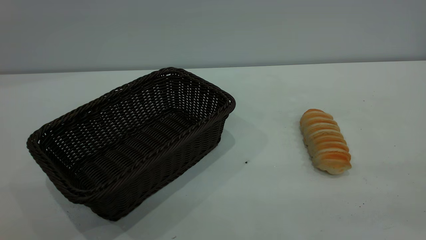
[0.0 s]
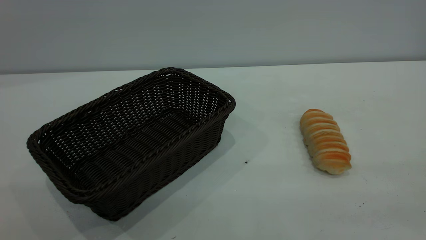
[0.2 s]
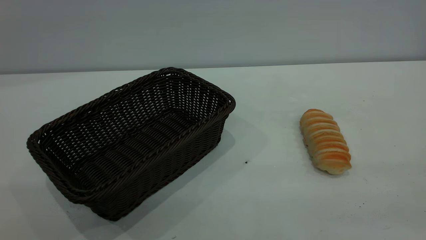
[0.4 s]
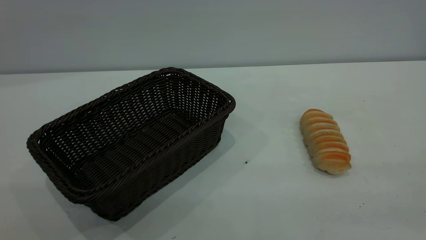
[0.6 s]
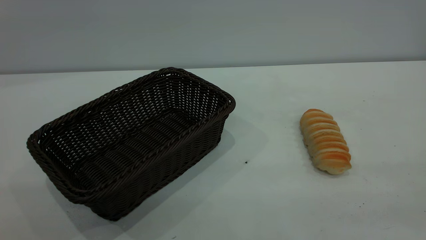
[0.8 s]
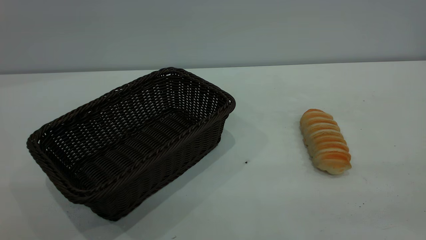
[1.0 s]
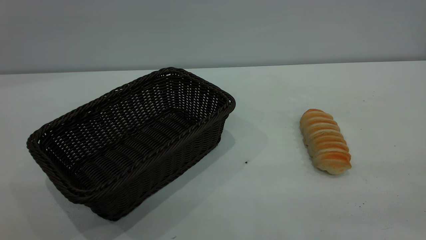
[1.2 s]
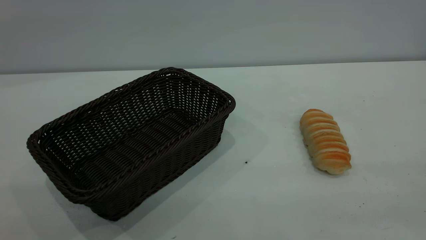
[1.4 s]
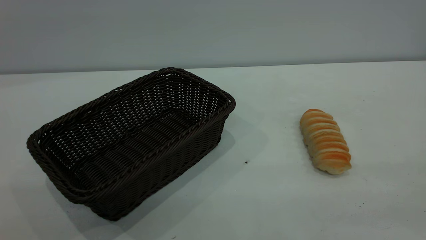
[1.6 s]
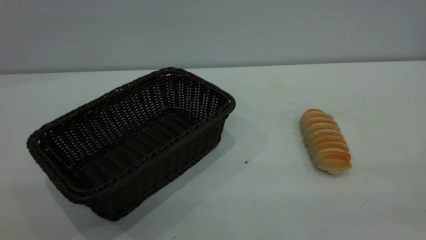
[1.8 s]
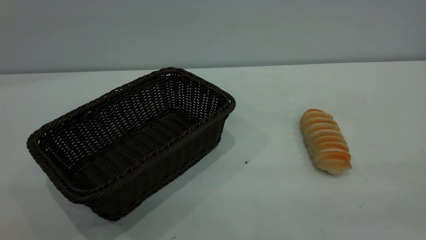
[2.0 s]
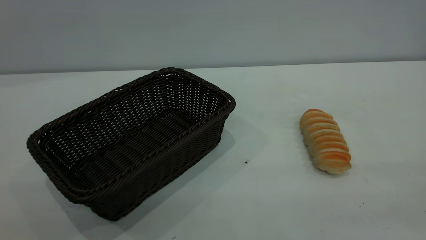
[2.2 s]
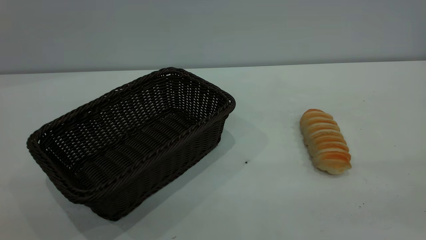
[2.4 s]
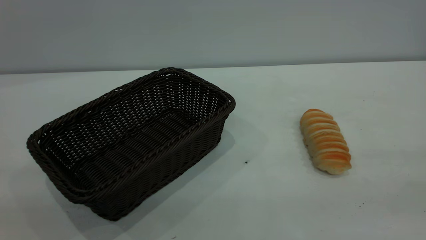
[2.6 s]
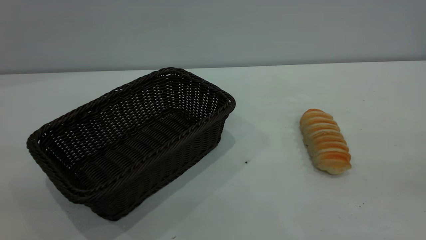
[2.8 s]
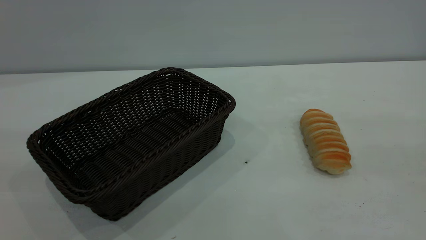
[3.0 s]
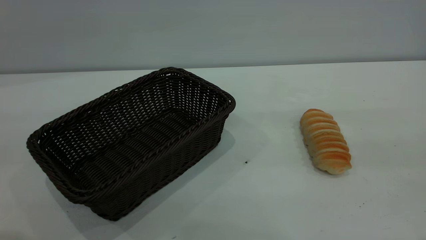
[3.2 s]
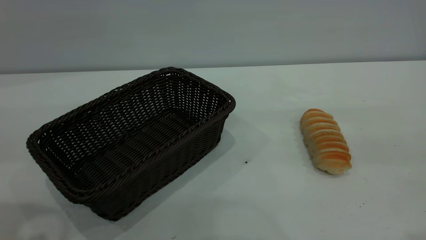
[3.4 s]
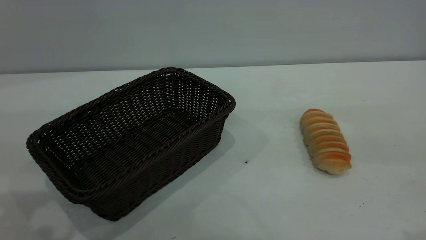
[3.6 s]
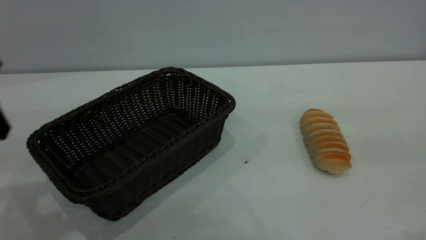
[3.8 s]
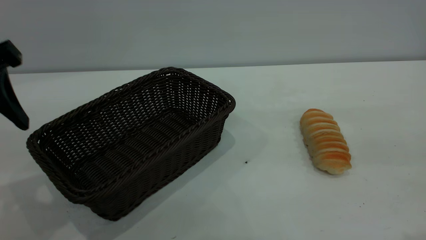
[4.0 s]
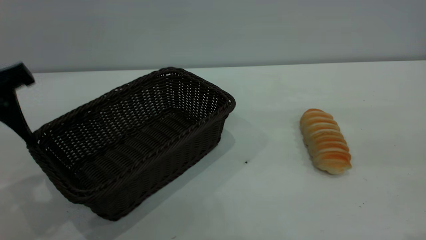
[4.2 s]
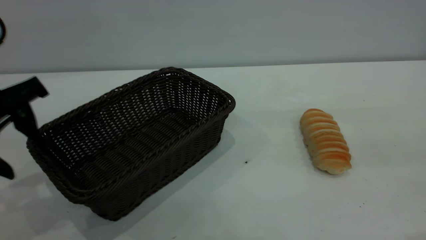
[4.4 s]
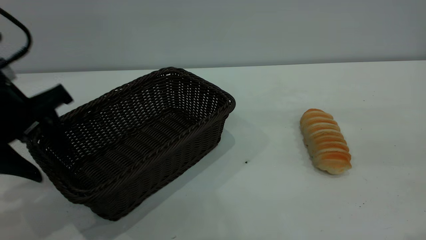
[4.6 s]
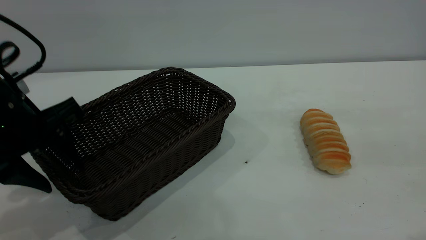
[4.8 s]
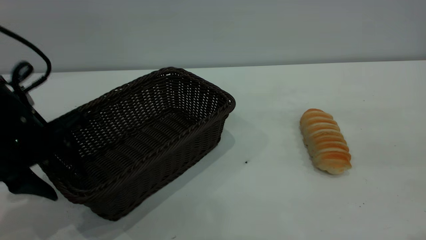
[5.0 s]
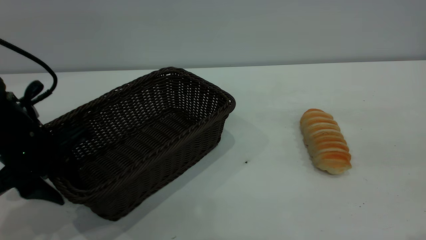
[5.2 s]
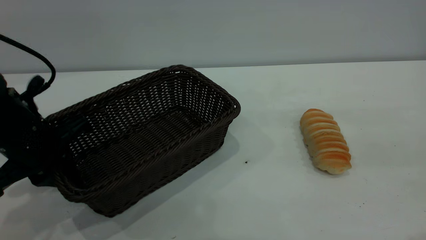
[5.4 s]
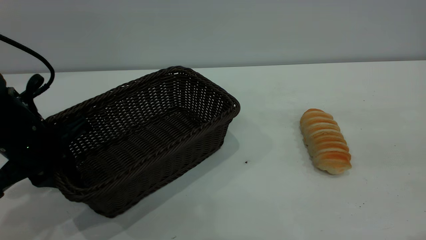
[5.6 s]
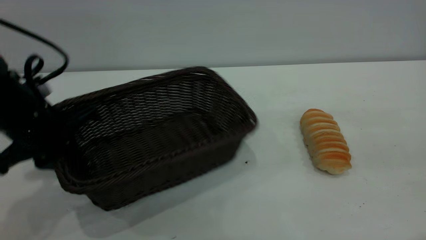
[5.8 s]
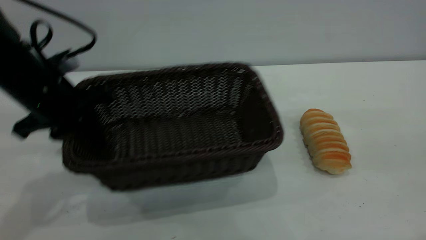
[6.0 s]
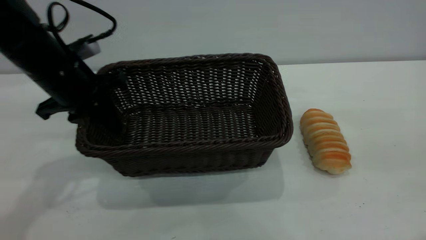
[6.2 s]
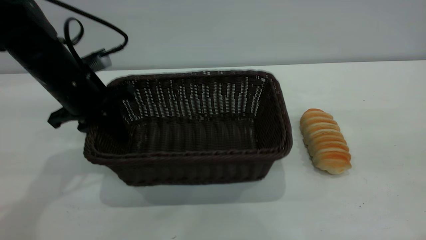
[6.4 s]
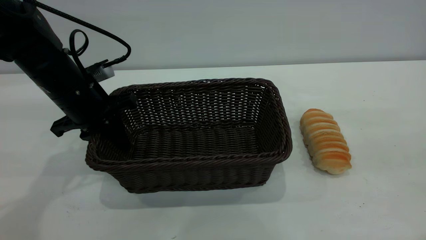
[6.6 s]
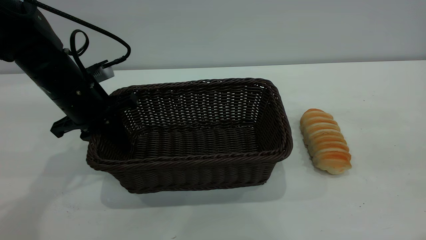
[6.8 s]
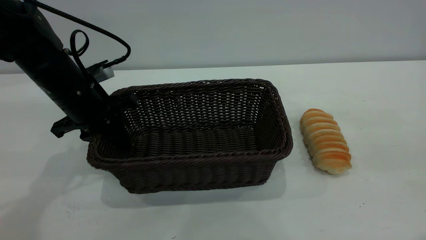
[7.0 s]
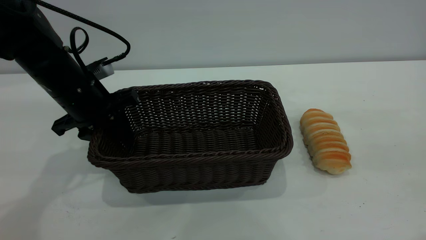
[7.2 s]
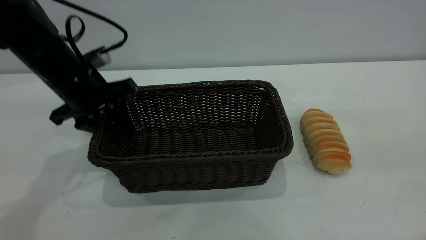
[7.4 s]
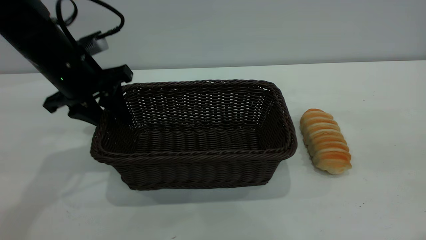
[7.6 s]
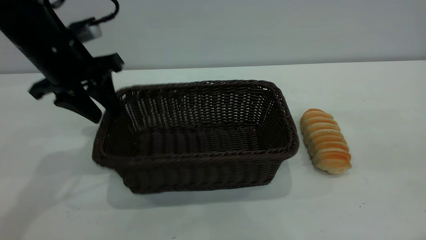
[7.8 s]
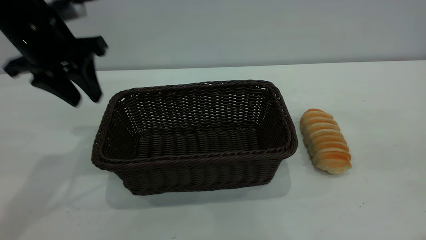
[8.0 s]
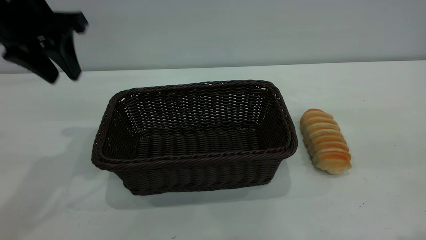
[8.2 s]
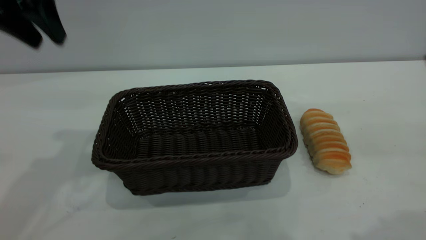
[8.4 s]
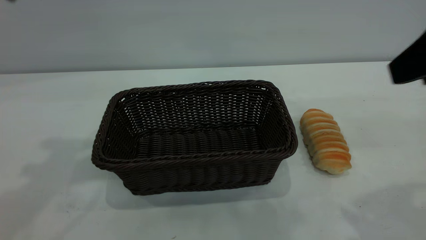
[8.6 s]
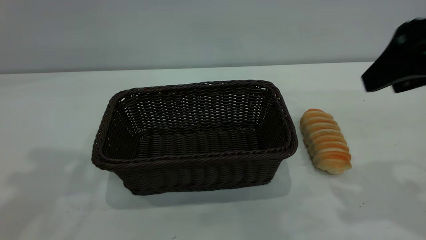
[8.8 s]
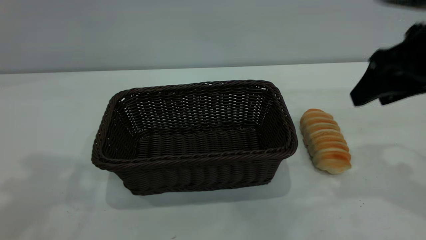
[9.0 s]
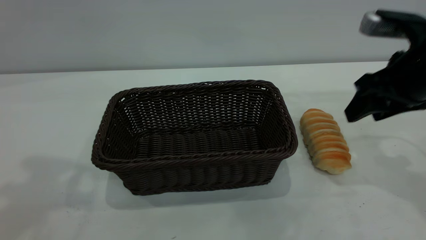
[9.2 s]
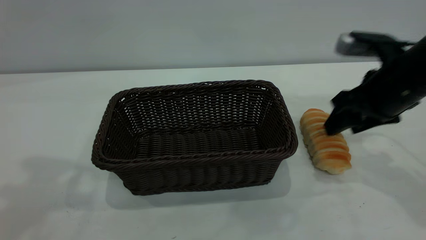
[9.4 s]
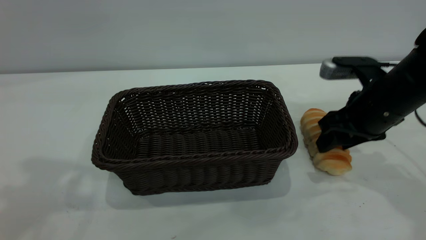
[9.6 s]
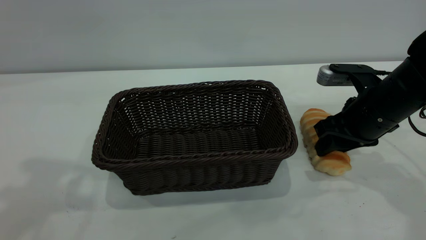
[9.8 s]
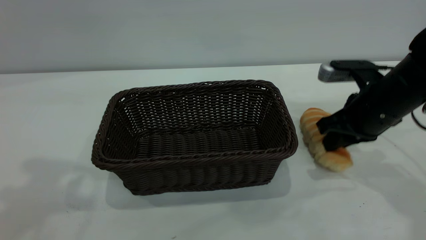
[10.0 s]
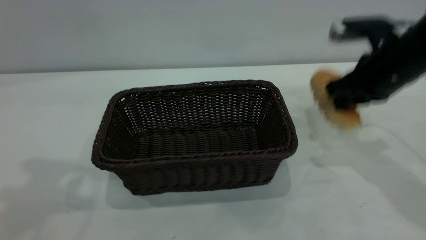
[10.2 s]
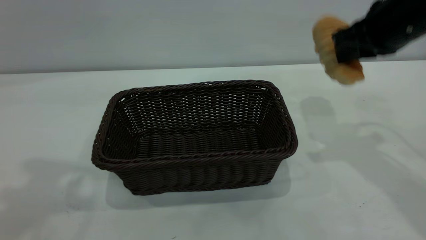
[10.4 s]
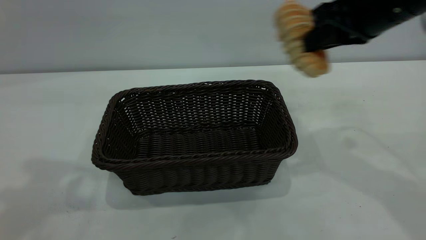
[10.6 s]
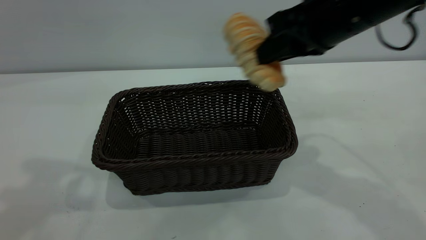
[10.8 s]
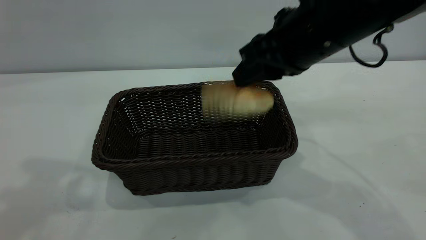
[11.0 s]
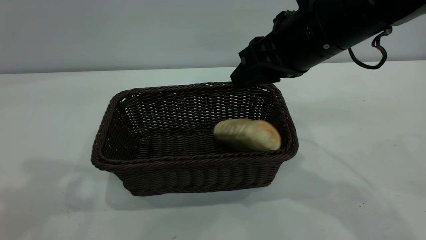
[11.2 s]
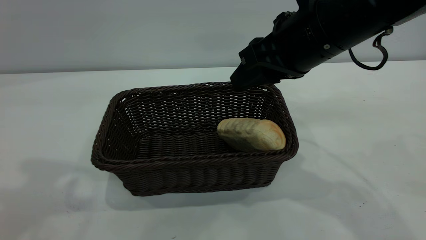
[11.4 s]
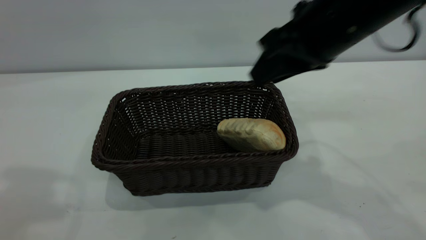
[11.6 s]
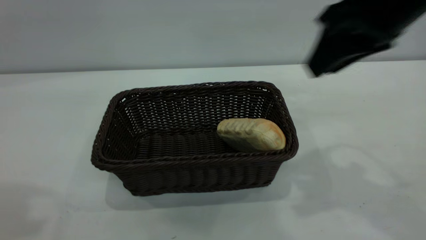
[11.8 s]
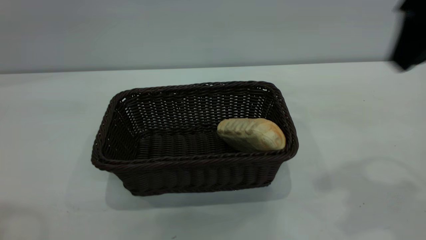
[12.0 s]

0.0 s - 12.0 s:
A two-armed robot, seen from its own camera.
Task of the whole recording: One hand grasps the black basket and places it in the middle of the table, while the other hand picks up the long bread and puts it into the black basket.
Step, 0.0 s - 8.0 s: Move the basket to the center of view.
Step, 10.4 s - 11.6 s: place the bread into the basket.
0.0 s - 1.6 s: Both grippers stay about where they are.
3.0 s - 4.4 s: The left gripper heads forward and downward, covering approximately 20 cm.
4.4 s - 6.0 s: The left gripper travels forward by about 10 cm, and closes.
6.0 s - 7.6 s: The left gripper opens up.
7.6 s - 9.0 s: The right gripper heads forward and downward, covering approximately 20 cm, while the left gripper shifts roughly 30 cm upward and backward.
9.0 s - 10.4 s: The right gripper goes downward and returns, approximately 10 cm each way, and closes up.
10.4 s - 12.0 s: The left gripper shifts roughly 10 cm backward; the right gripper moves backward and upward, roughly 15 cm, moves some 10 cm to the left and comes back, and opens.

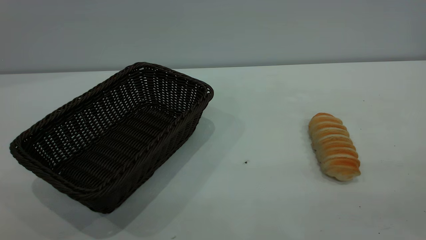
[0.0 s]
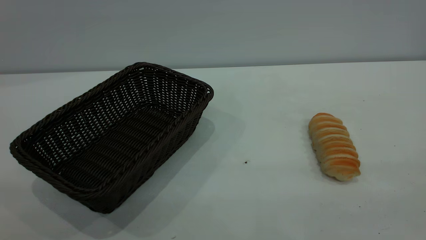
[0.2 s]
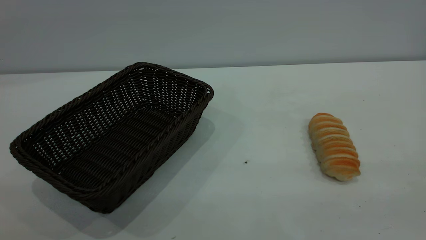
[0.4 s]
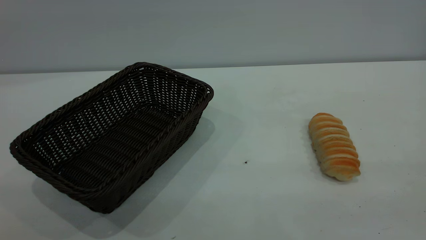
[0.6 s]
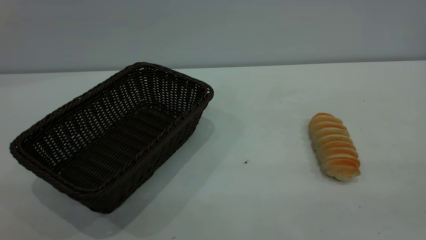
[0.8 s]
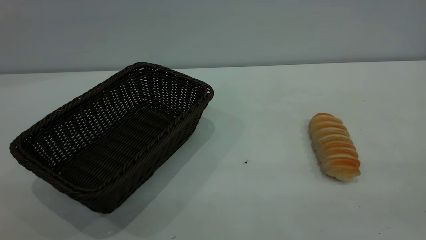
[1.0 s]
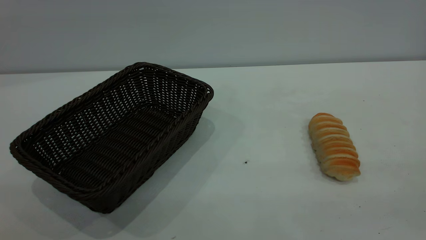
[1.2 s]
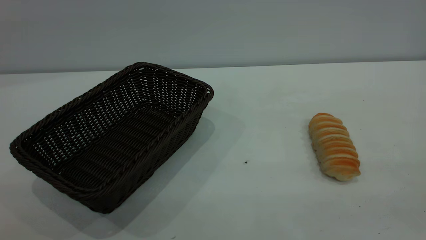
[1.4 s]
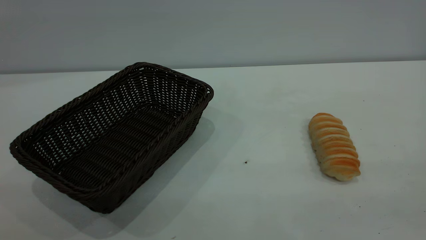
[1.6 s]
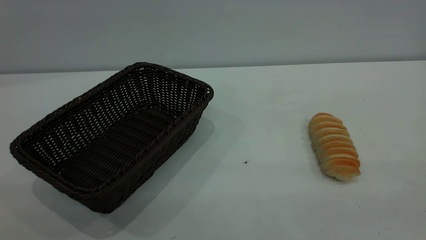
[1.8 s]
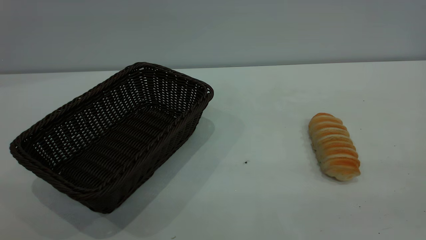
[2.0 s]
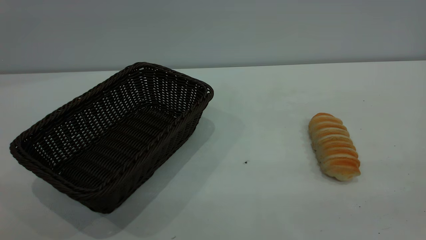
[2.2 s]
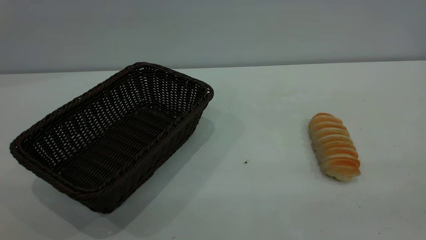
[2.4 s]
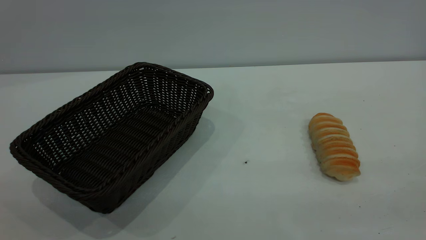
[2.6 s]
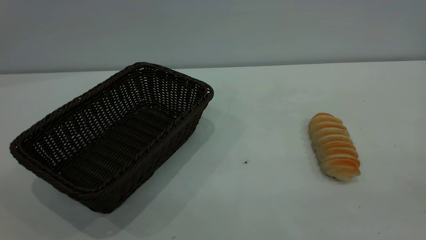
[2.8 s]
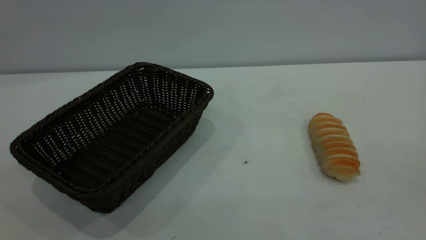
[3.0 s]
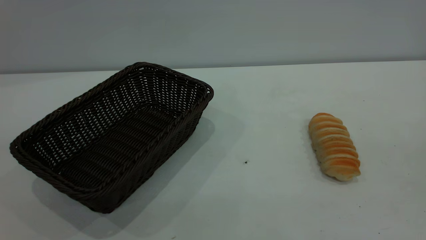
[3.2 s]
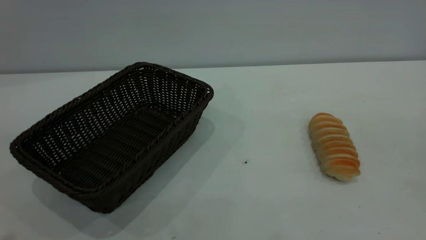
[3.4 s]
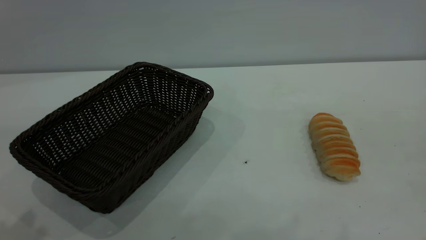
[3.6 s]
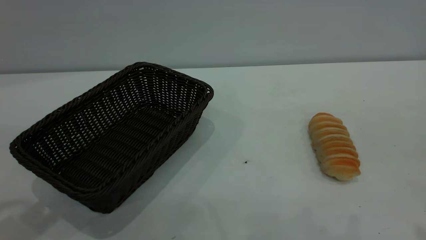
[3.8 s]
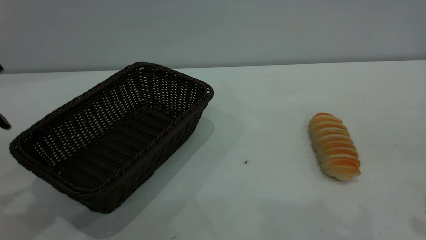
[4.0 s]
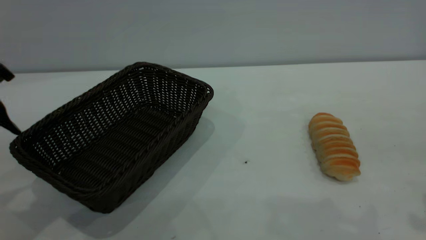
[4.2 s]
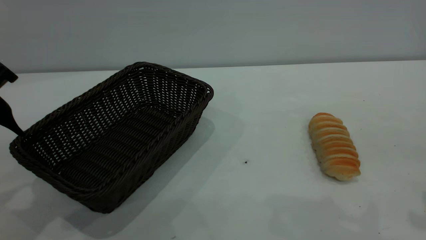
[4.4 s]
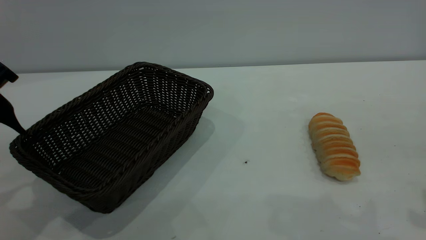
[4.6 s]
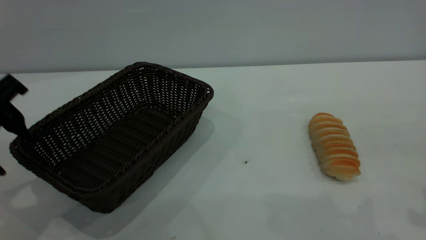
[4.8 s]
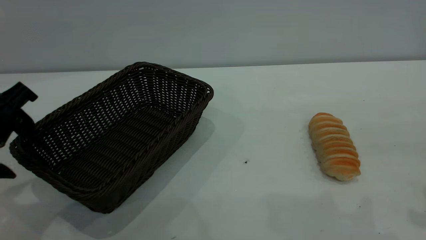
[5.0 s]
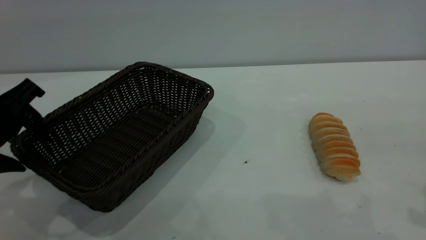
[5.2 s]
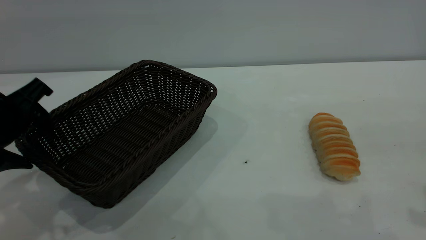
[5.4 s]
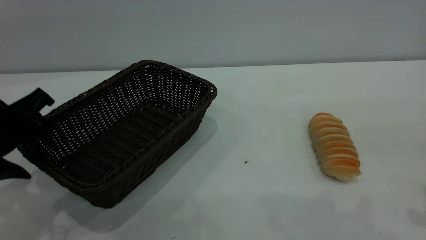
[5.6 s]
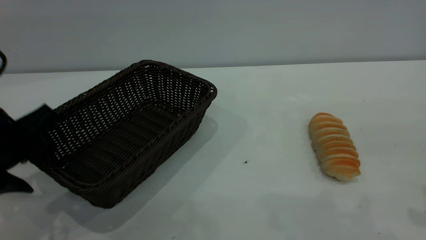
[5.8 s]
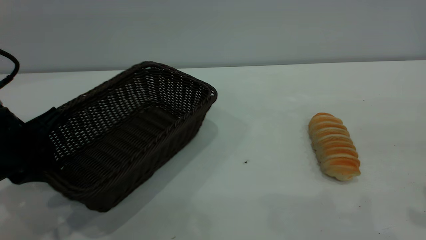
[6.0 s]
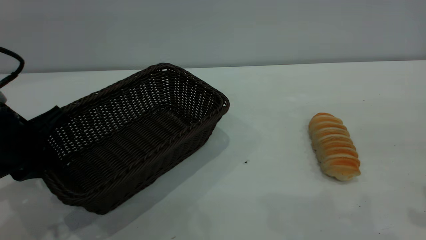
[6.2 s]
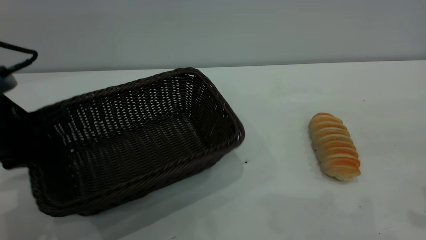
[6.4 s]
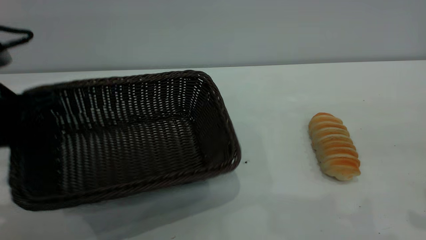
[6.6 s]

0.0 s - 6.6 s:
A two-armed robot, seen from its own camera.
Task of the whole recording: One hand grasps the black basket and places it in the middle of the table, while the other hand picks up the long bread and puts it into the black basket.
0.0 s - 1.6 s: The two grippers keep their place.
3.2 s - 5.0 s: The left gripper goes roughly 25 cm downward and forward.
5.0 s - 6.6 s: The left gripper closes up.
